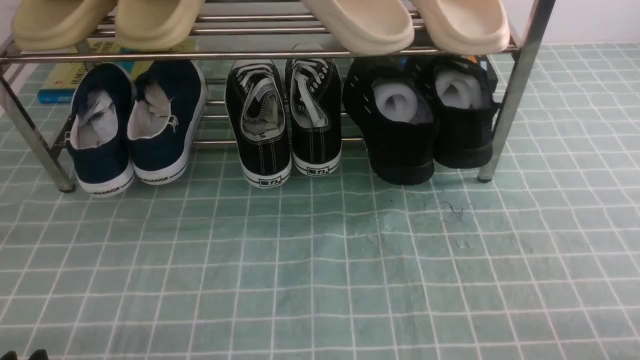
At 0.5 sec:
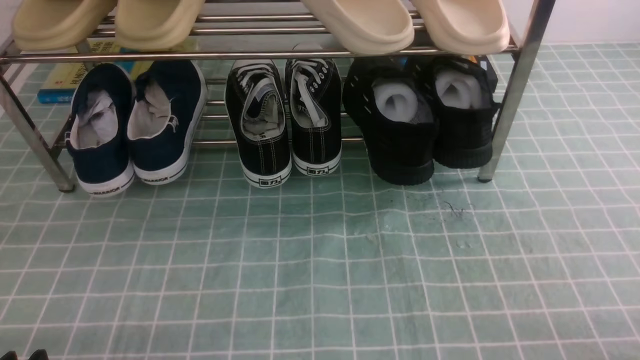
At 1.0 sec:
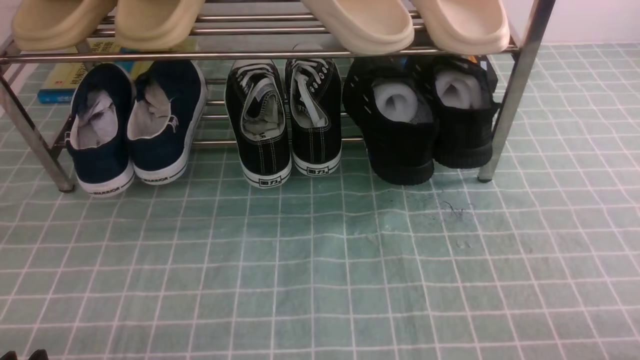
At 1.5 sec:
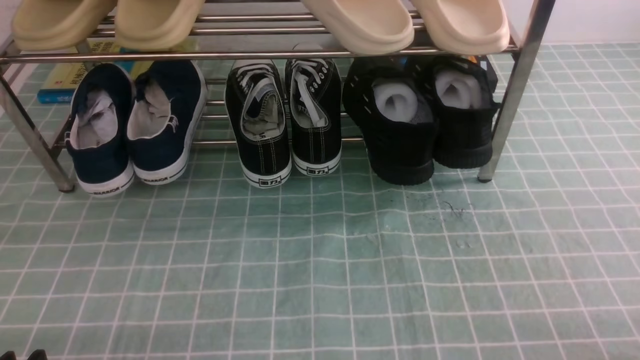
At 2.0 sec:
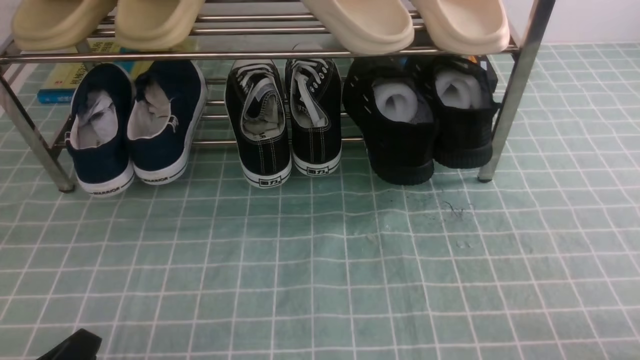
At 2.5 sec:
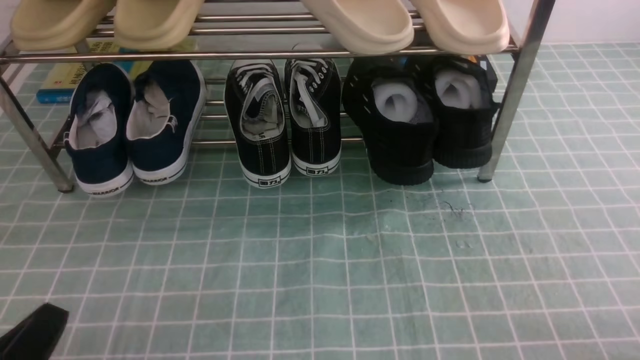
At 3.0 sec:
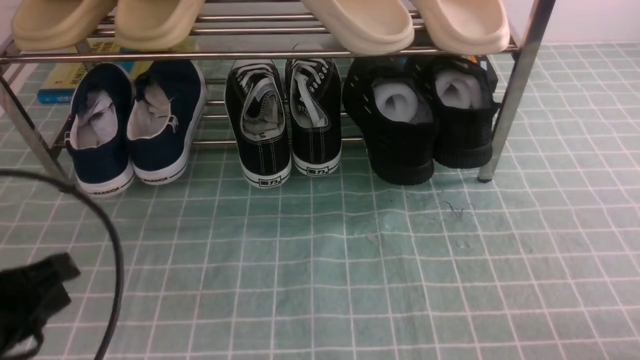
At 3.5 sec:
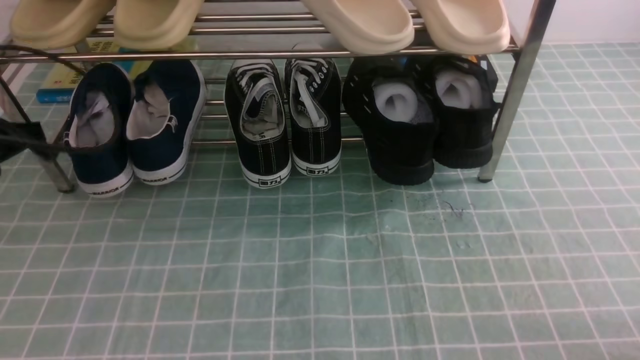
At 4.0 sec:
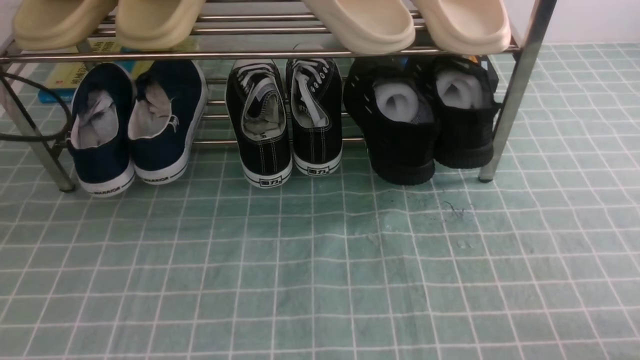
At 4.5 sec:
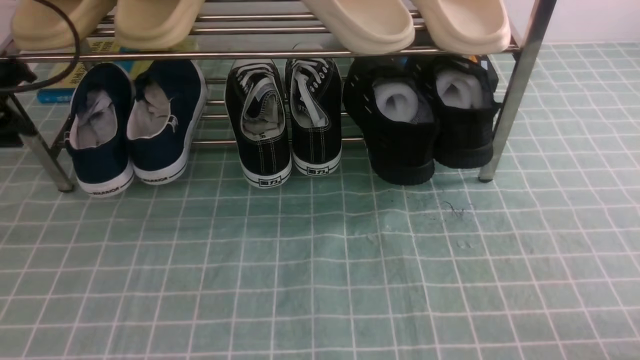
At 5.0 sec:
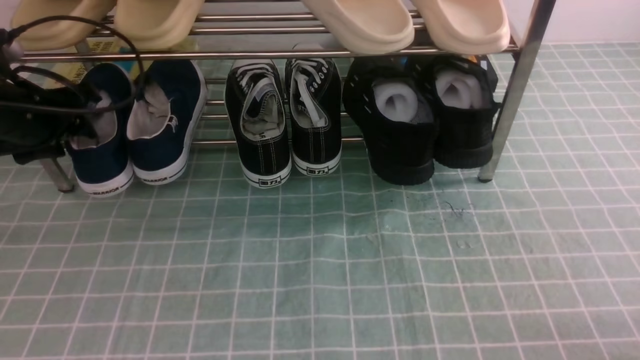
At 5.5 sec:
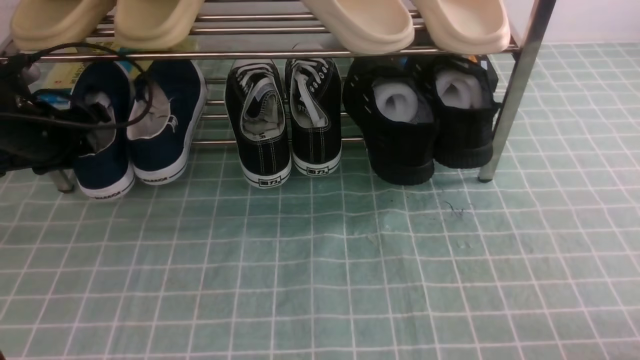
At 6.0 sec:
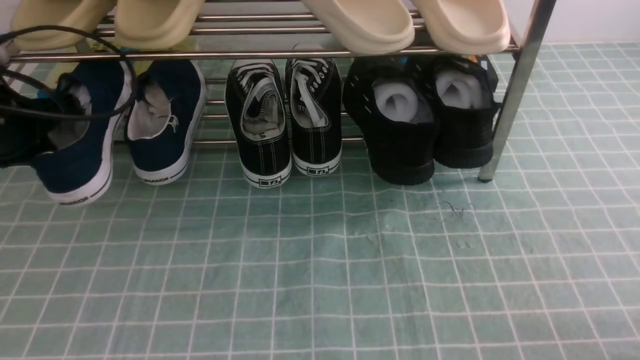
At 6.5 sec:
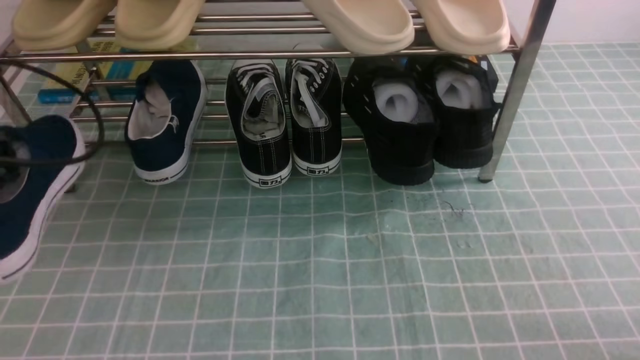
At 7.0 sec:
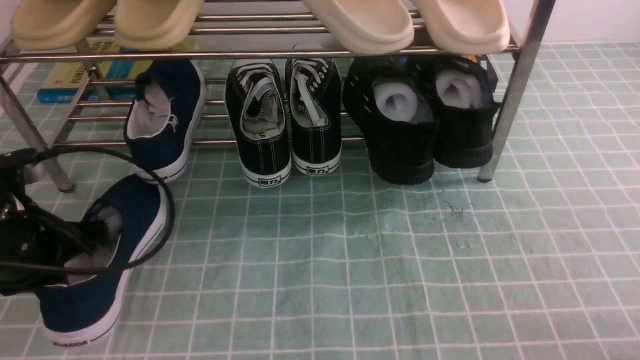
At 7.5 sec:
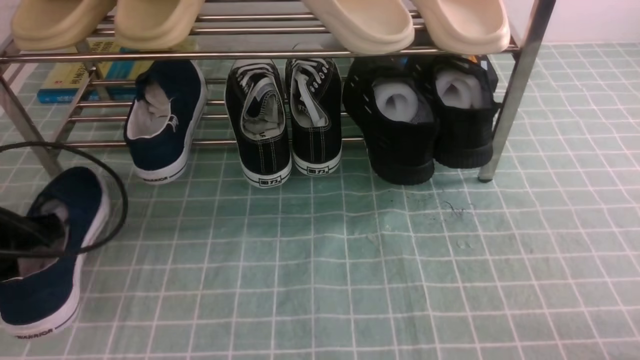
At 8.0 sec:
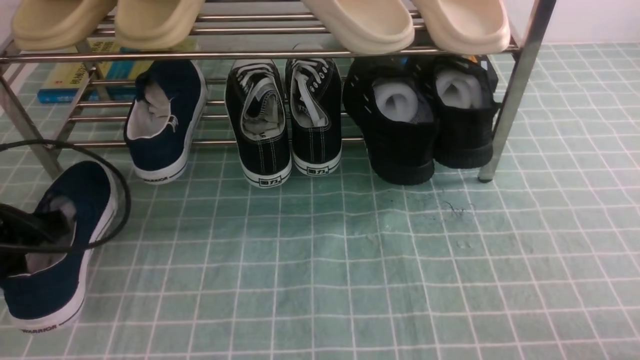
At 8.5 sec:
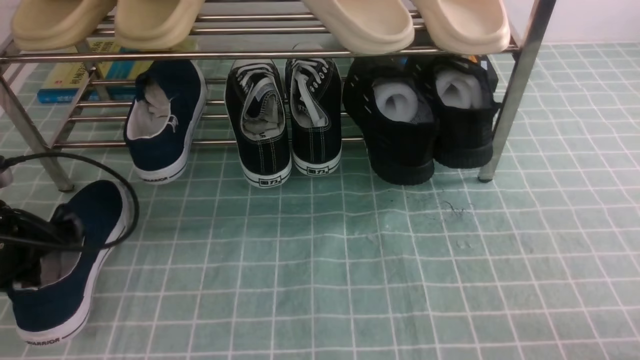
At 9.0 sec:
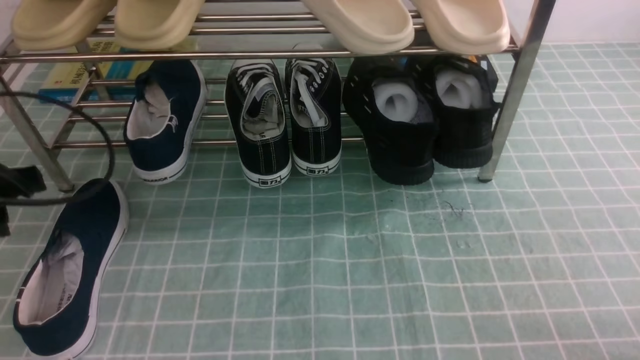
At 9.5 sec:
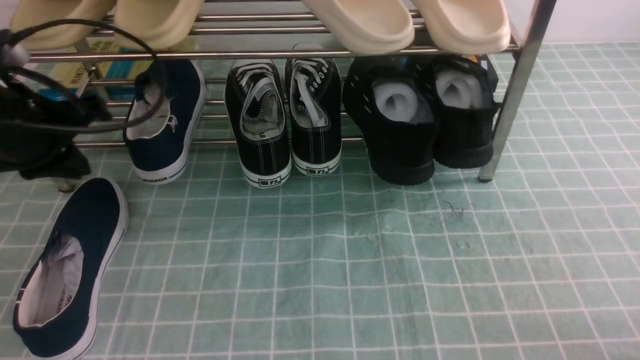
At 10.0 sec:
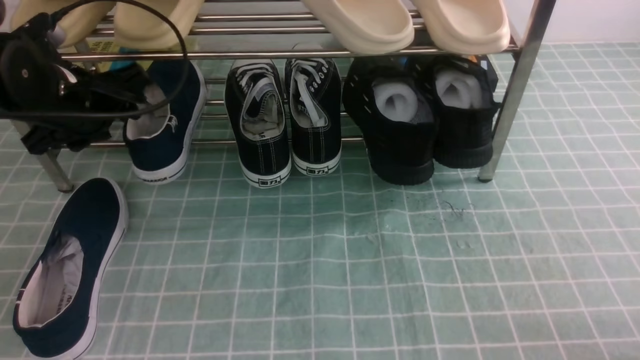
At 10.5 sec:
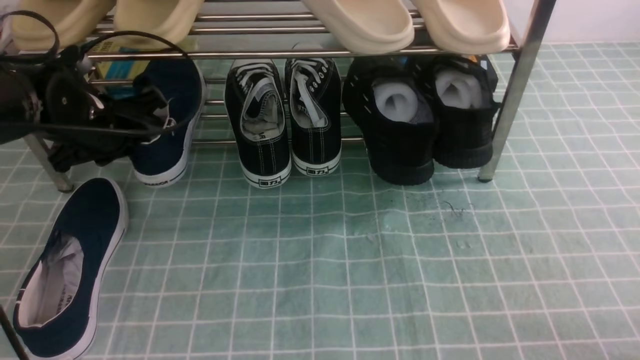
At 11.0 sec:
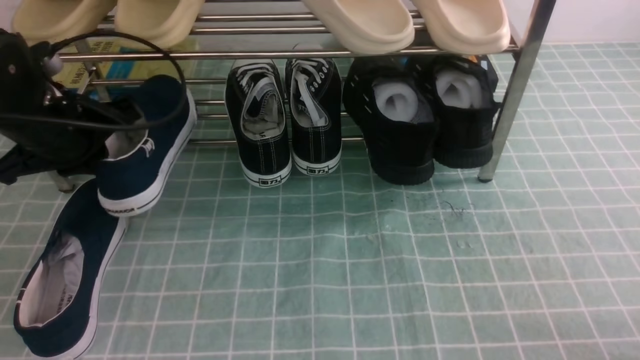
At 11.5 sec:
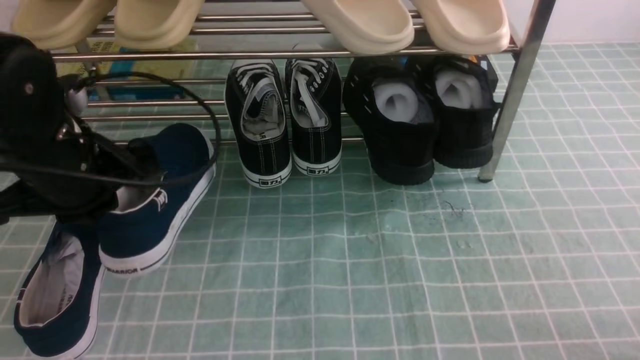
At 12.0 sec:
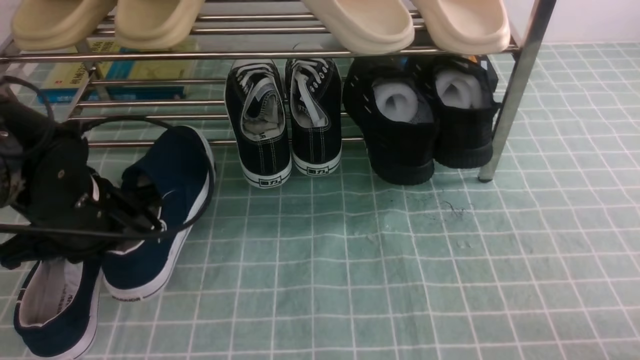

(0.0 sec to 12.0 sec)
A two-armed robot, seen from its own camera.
Step, 0.0 sec - 5.5 sec: use the left arm to clamp a shoe on the left side of the shoe rack.
Step, 6.0 sec - 8.5 sec: Use your left arm to remove the clamped shoe from the shoe rack and put it down.
Step, 9.0 sec - 10.5 sec: use the left arm to clamp a shoe on the left side of the shoe rack.
2.0 sec - 4.0 sec: The left gripper is displaced forward, upward and to the left by approximately 30 cm, and closes its fingers.
4.0 sec - 6.0 sec: The left gripper opens, then closes again.
6.0 sec - 8.0 sec: The left gripper heads backward and downward, covering approximately 10 cm.
8.0 sec - 10.0 sec: The left gripper is displaced forward and to the right by approximately 15 cm, and opens up.
10.0 sec - 12.0 sec: The left gripper travels backward by roughly 10 cm, and closes its fingers.

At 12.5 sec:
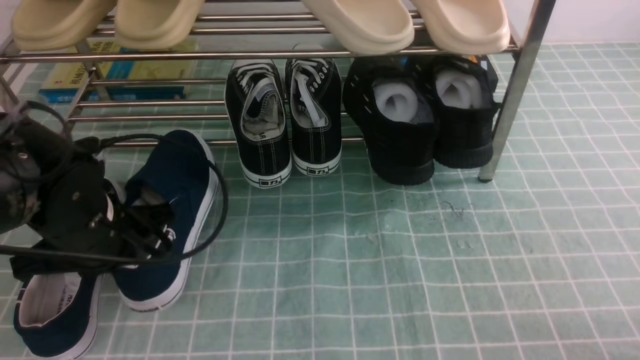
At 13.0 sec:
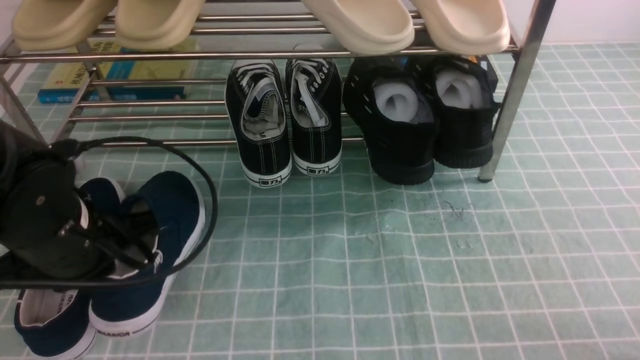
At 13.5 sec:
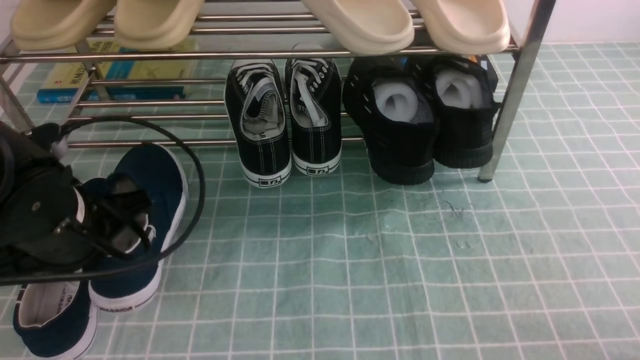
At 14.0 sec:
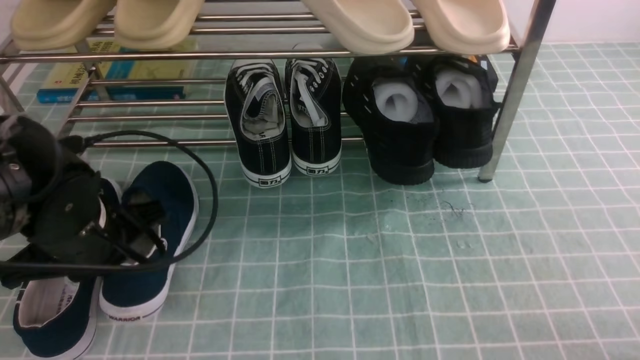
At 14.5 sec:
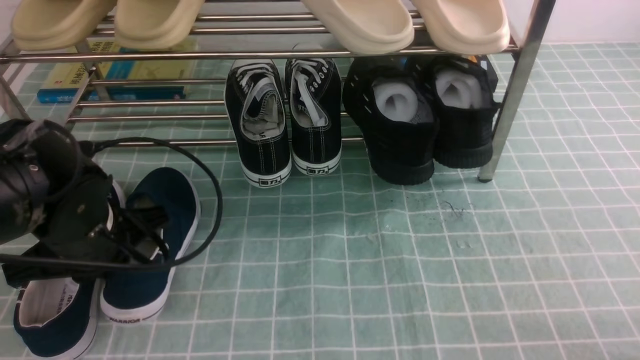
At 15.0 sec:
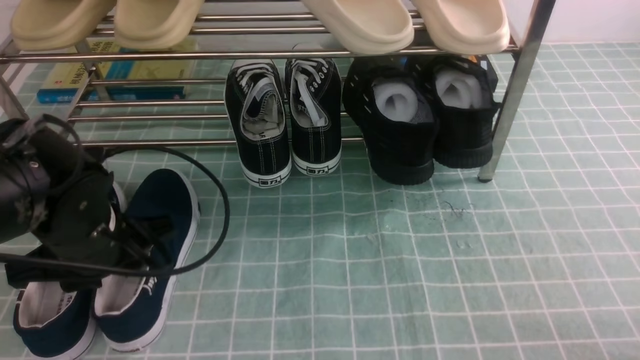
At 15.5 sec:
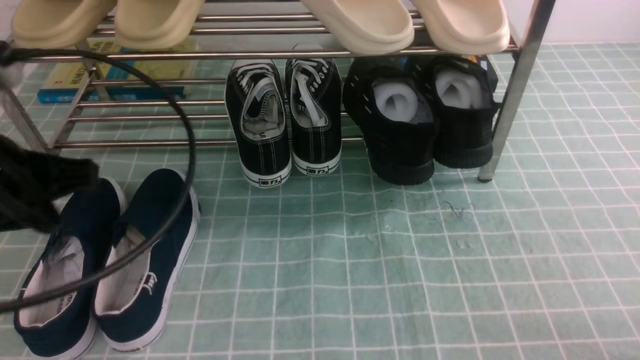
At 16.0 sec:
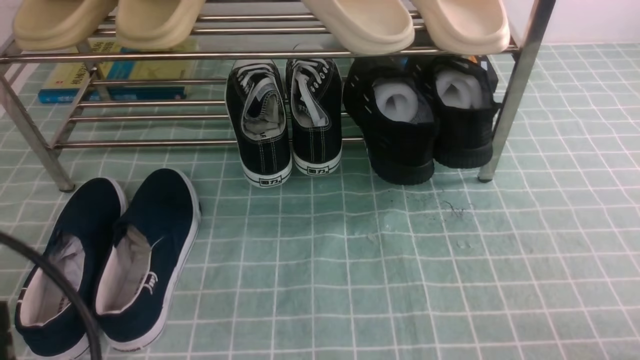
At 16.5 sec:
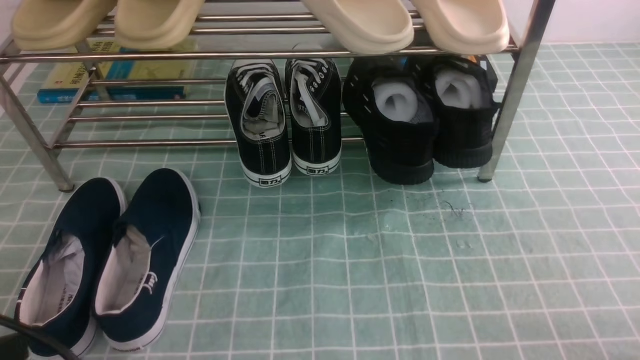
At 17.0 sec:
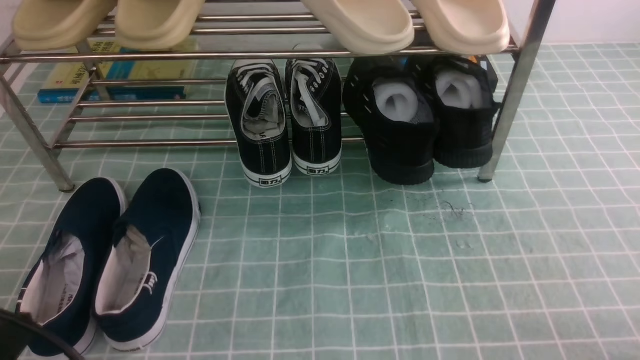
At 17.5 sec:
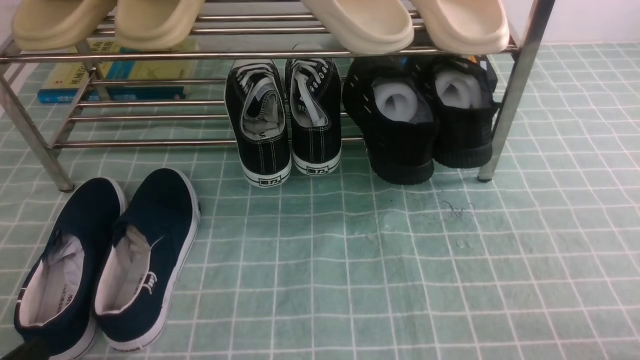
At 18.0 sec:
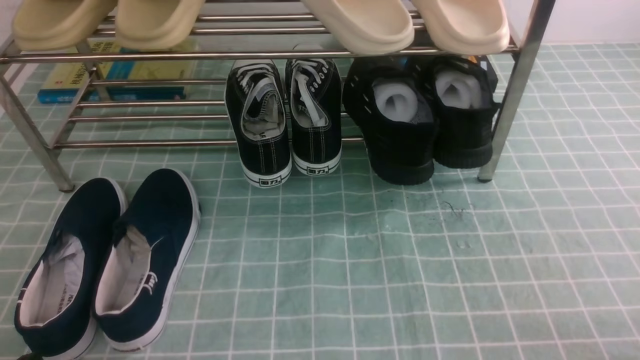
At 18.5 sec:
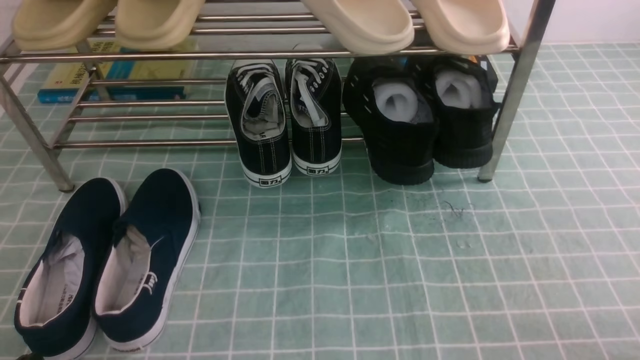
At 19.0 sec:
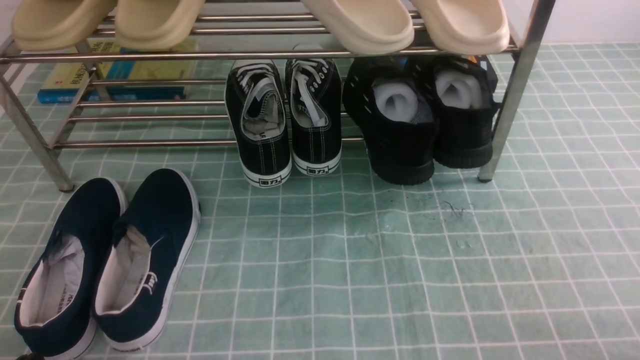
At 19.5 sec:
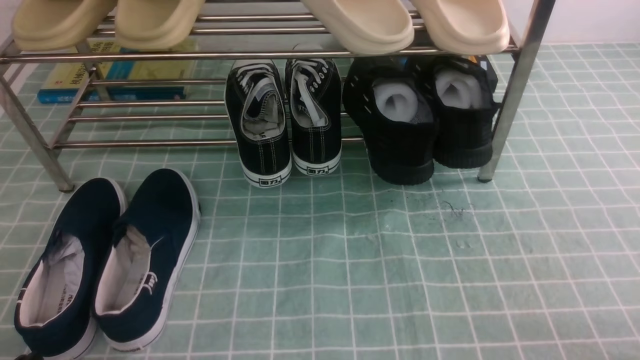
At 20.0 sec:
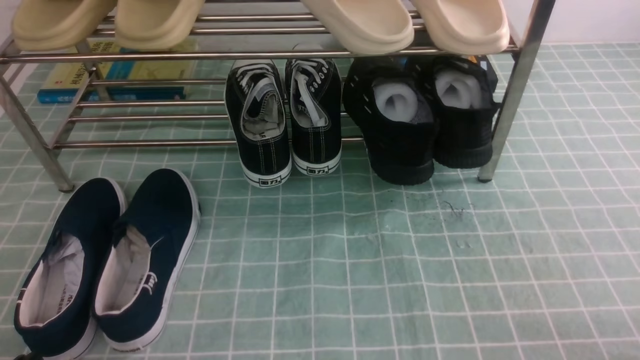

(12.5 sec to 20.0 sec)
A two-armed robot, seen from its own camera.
Step, 12.5 sec - 15.0 sec: Use your left arm to remove the clamped shoe from the shoe rack and put it down.
12.5 sec - 14.5 sec: The grippers stay close to where they were, moving slightly.
14.5 sec - 16.5 sec: The left gripper heads backward, covering approximately 20 cm, and opens and closes again.
18.0 sec - 20.0 sec: Neither gripper changes place.
